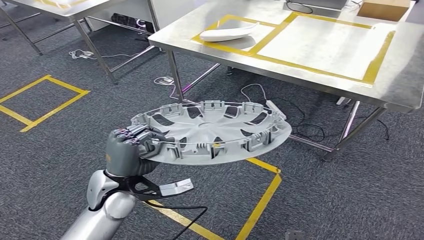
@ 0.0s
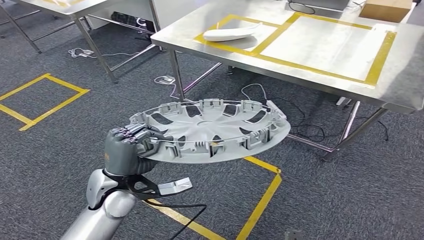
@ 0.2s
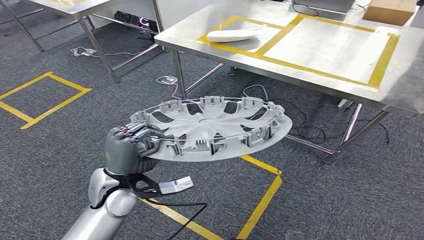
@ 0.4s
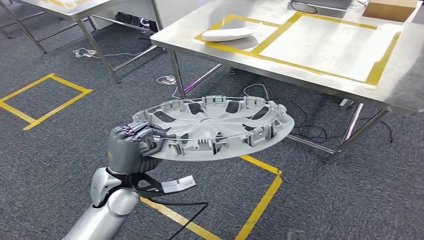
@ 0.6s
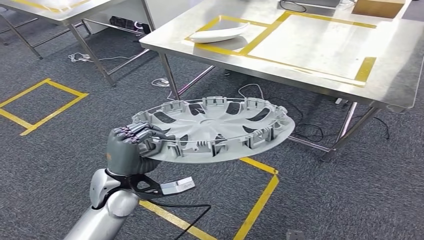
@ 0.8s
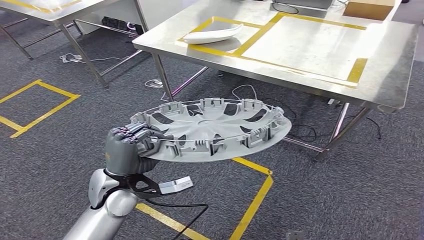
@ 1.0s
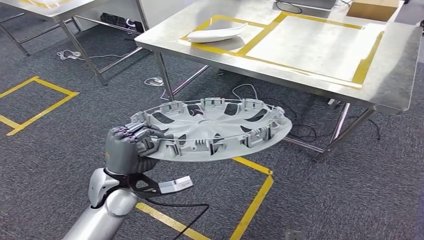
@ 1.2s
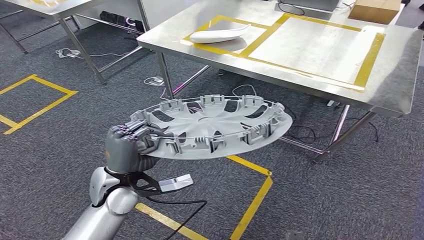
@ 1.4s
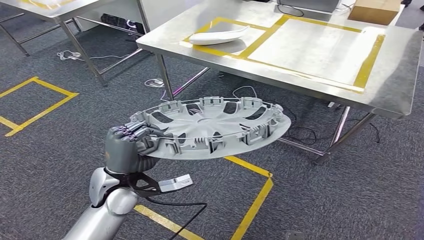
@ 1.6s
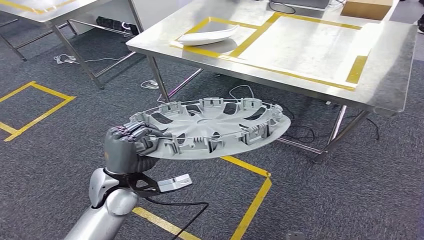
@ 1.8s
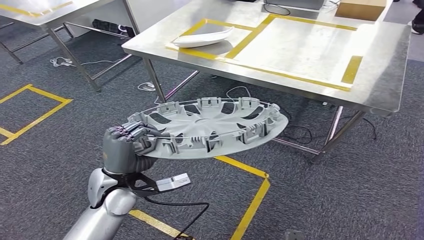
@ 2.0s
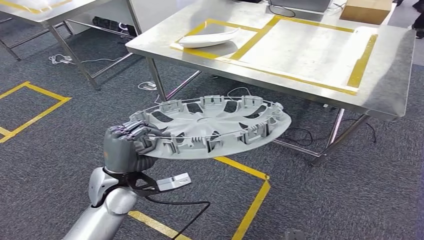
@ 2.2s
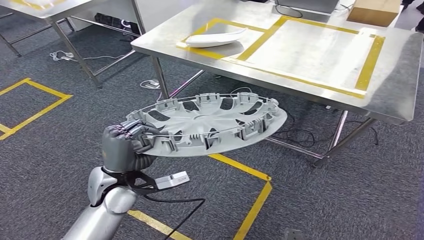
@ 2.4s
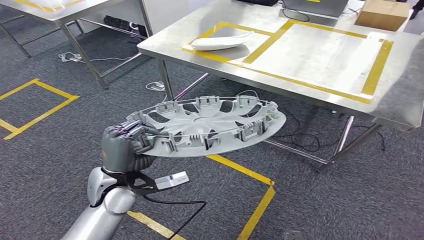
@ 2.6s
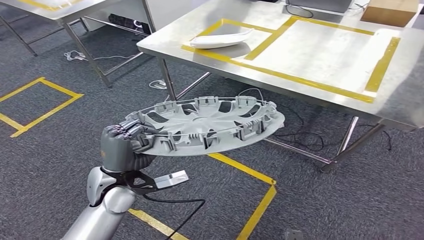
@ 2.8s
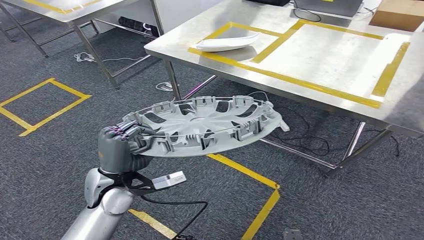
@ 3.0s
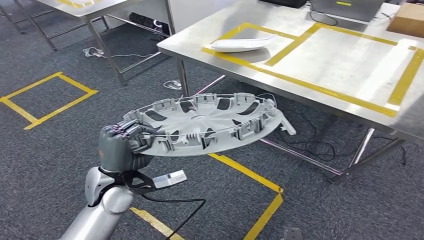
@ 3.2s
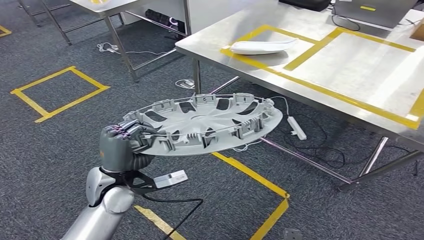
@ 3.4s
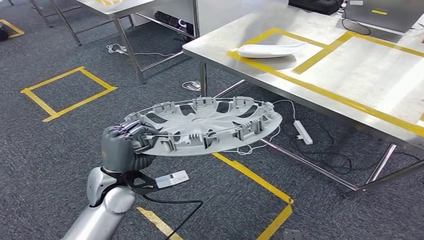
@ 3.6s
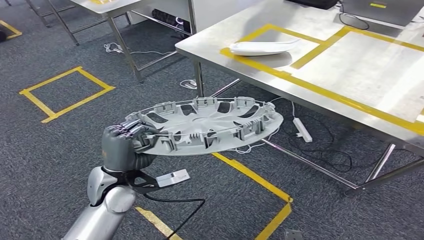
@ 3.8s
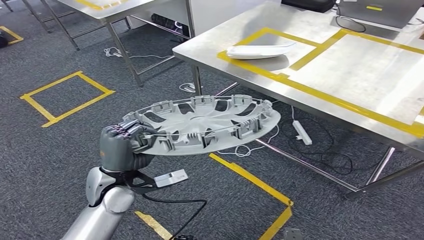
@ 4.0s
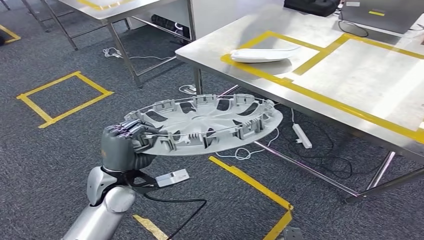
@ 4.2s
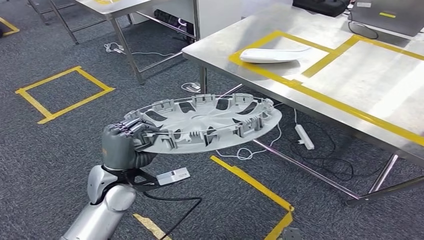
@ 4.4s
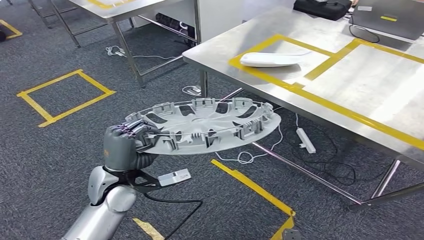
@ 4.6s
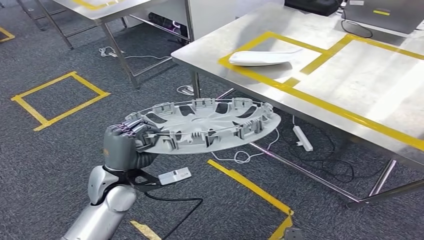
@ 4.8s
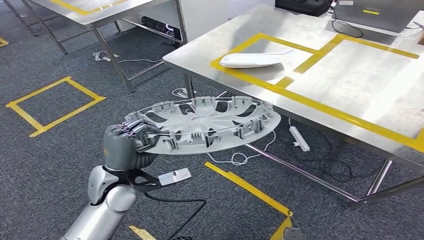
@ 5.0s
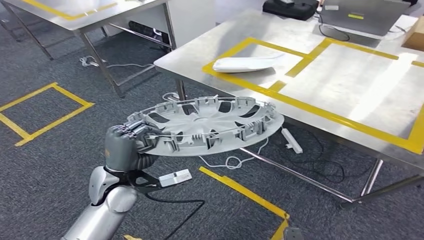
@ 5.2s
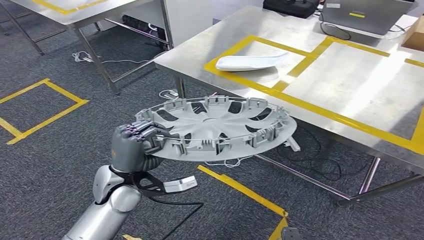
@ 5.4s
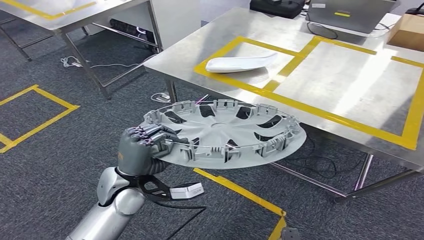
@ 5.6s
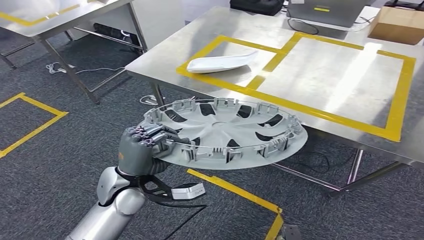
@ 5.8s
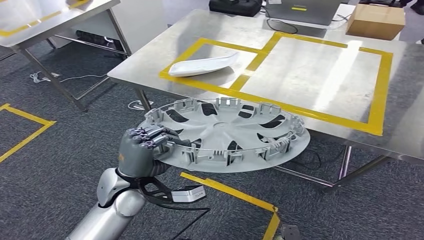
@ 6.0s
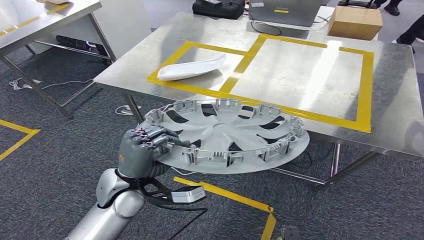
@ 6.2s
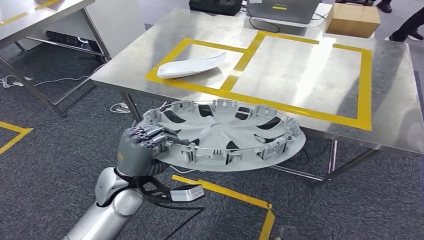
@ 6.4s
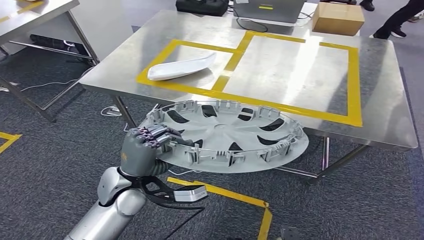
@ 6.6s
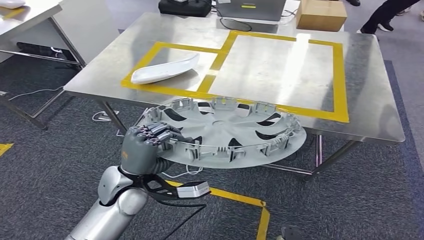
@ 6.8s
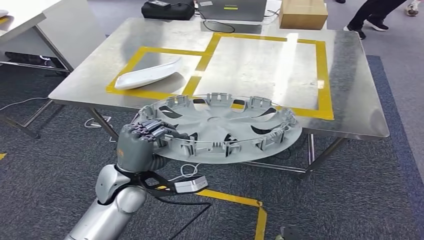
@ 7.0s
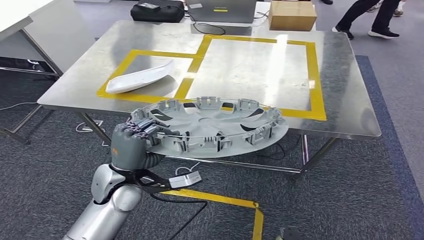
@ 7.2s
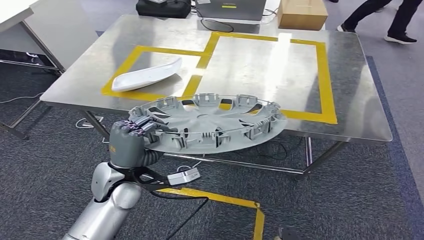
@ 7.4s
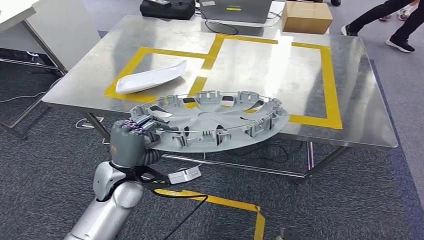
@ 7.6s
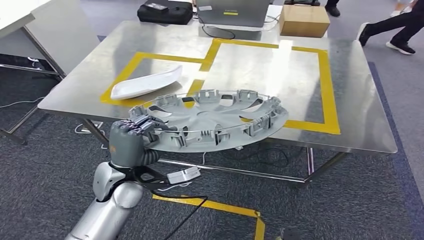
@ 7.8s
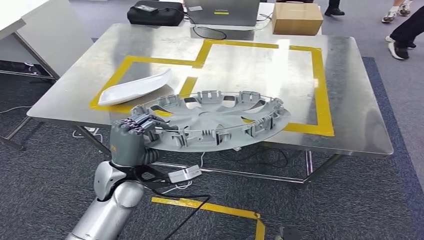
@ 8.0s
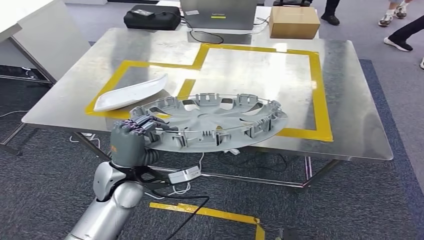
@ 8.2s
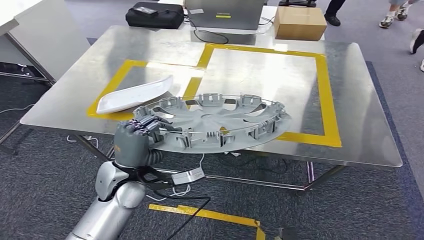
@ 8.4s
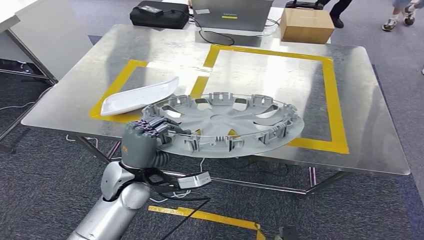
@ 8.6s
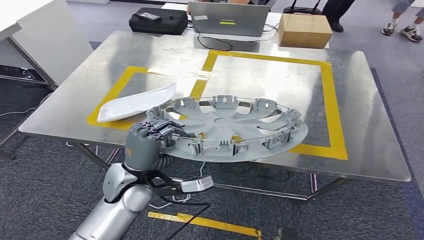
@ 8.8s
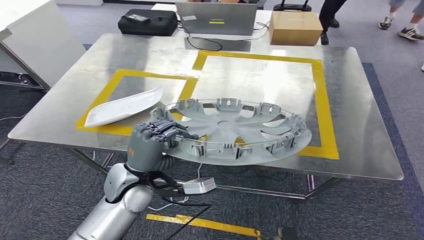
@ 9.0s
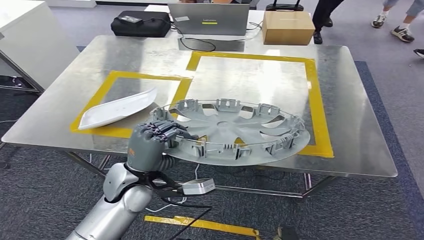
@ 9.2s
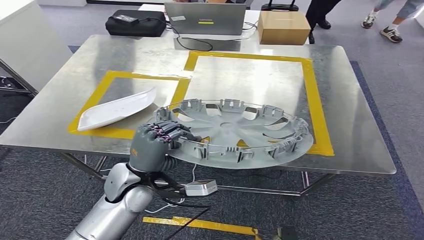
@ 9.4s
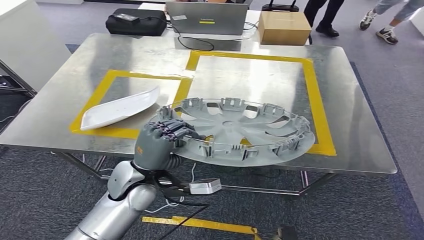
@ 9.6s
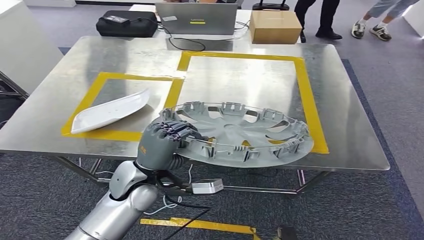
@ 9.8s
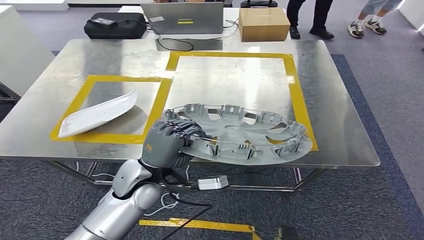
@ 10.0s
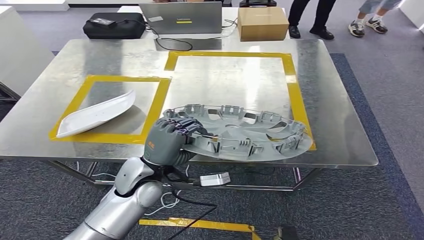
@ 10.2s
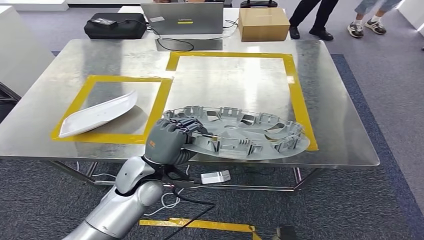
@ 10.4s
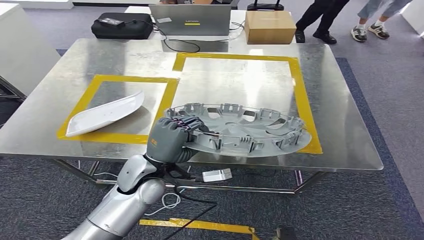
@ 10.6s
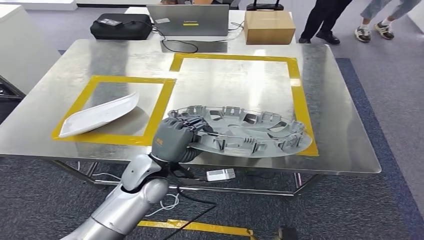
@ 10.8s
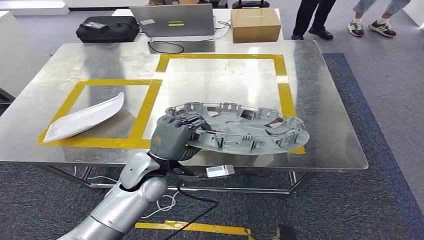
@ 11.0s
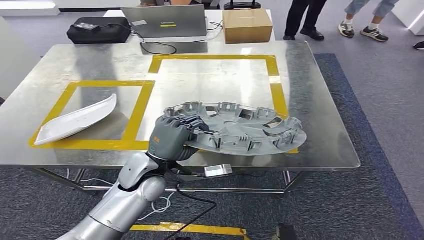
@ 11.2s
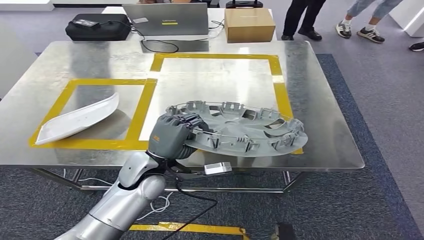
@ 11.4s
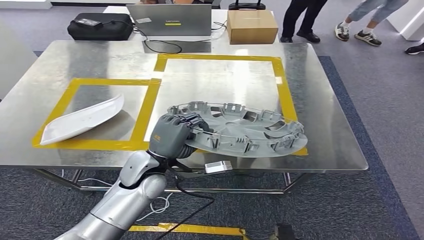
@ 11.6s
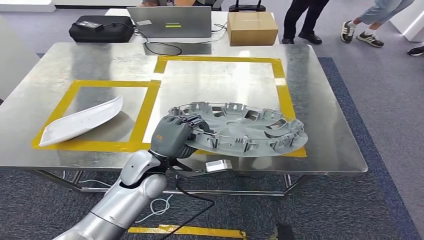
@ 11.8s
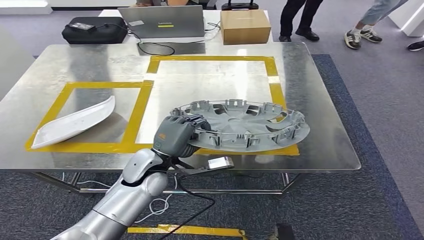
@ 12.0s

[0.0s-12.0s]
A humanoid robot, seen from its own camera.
Step, 0.0s to 9.0s: Move the small component to the workbench.

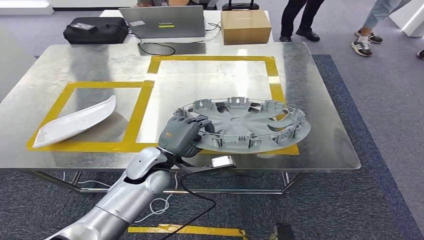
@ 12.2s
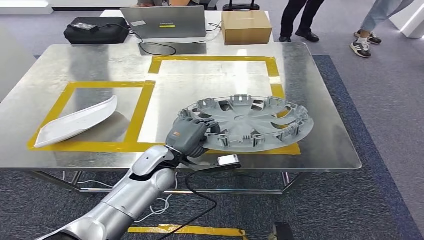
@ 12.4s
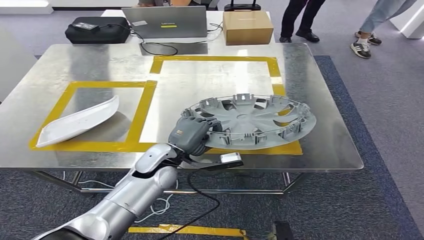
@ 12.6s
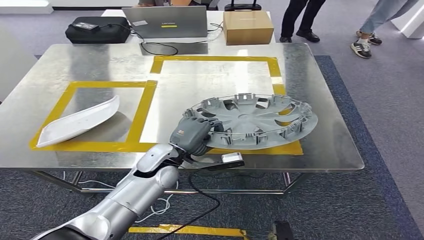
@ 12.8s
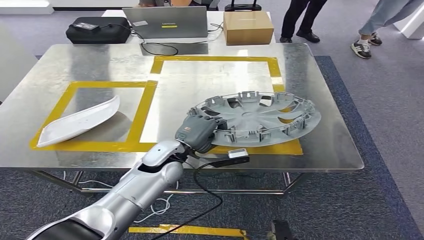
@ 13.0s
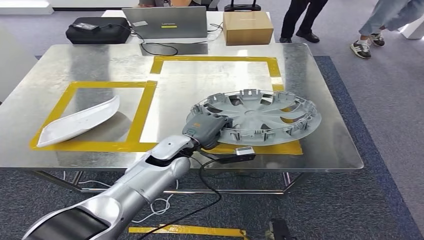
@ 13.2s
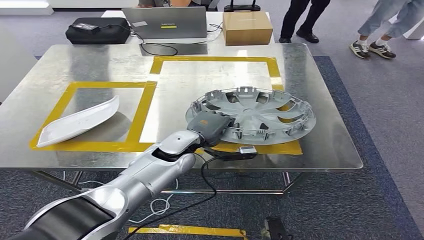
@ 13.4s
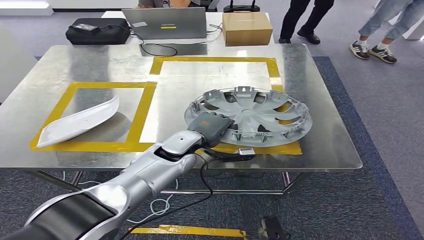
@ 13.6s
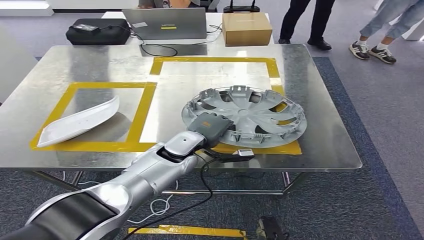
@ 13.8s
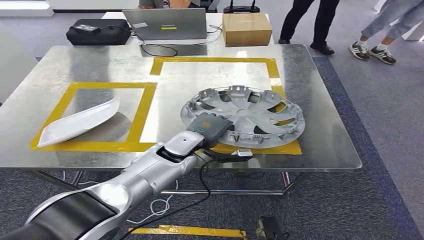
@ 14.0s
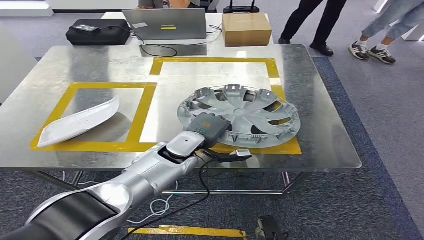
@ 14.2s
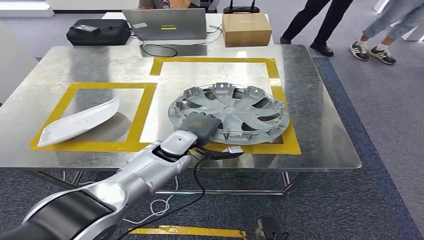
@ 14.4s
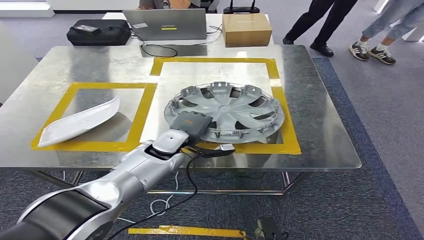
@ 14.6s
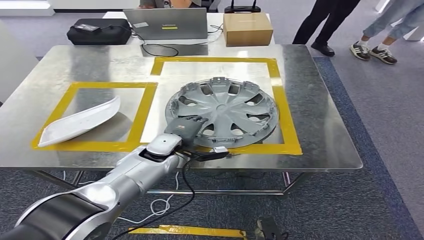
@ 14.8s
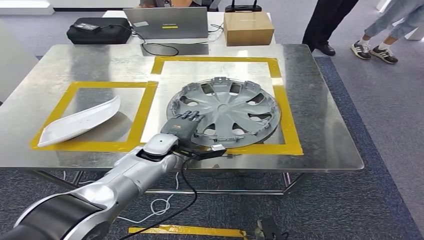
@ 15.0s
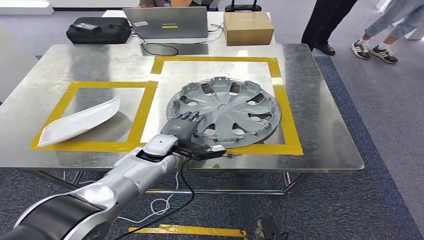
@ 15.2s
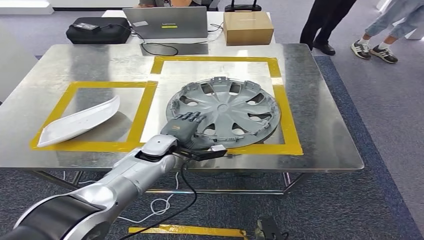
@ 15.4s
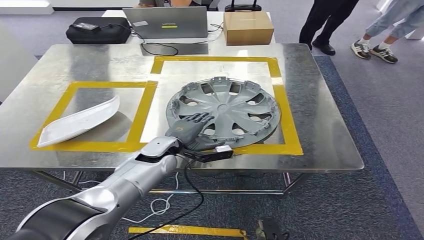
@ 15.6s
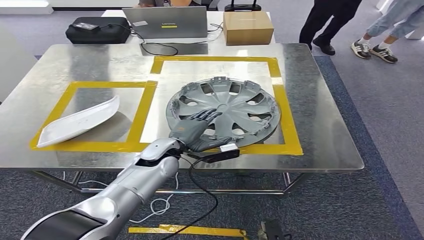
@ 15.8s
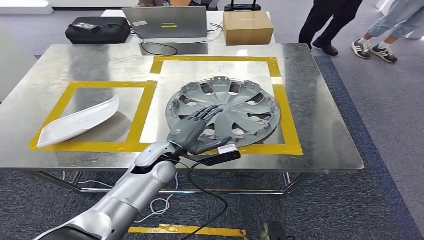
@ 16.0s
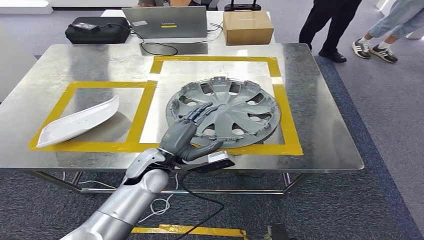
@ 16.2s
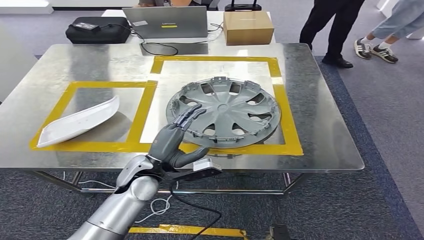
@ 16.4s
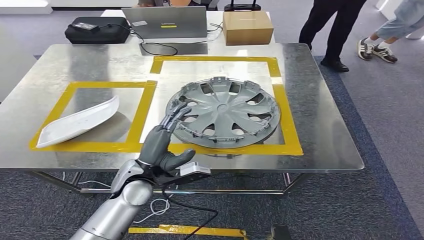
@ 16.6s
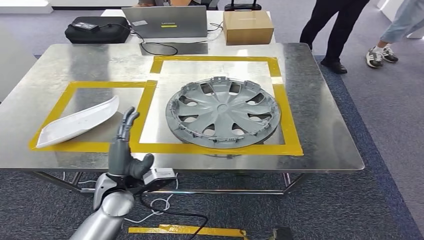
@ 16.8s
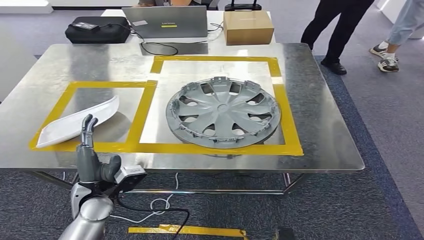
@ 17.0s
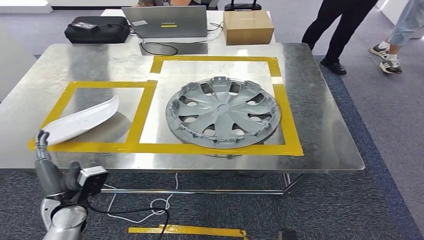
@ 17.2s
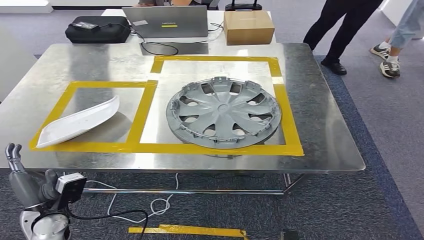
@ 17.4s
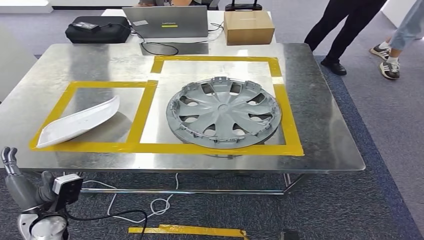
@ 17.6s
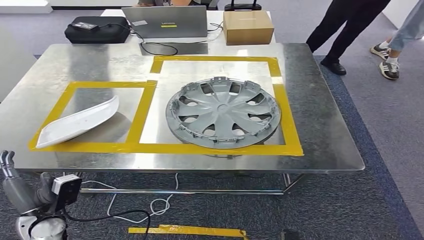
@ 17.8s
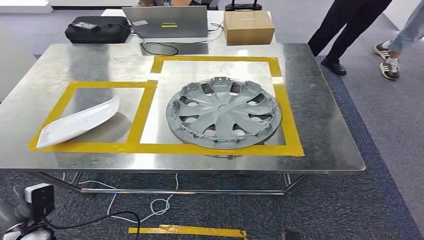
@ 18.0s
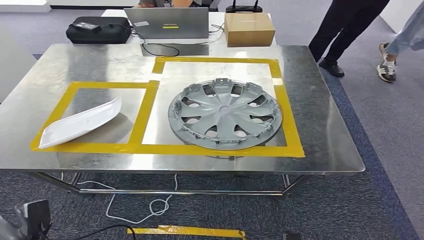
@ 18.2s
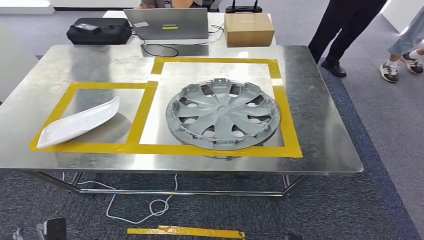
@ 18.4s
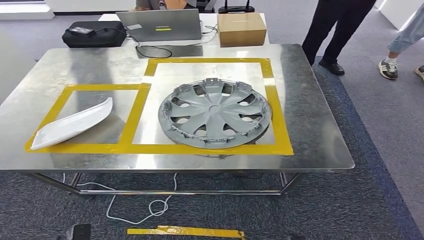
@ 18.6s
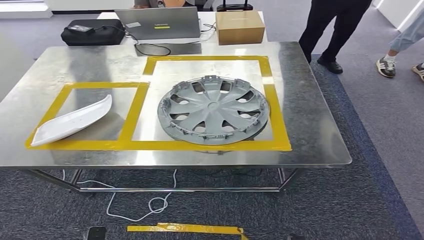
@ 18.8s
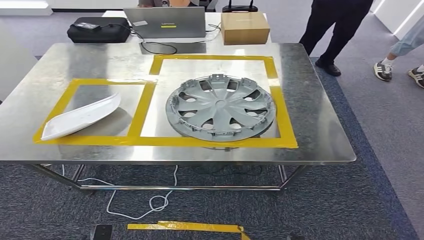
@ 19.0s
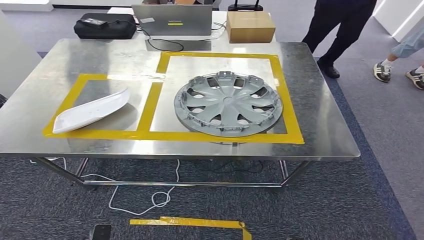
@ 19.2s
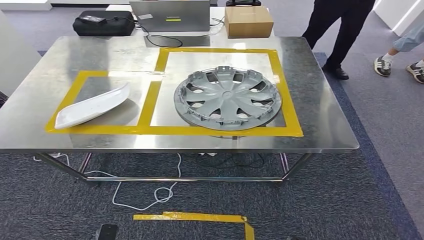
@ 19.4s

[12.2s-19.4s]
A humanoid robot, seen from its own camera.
15.0s to 16.6s: The left hand travels backward by roughly 10 cm.
16.6s to 18.0s: The left hand travels to the left, downward and backward by approximately 30 cm.
